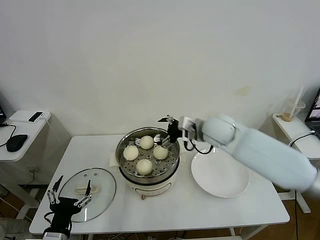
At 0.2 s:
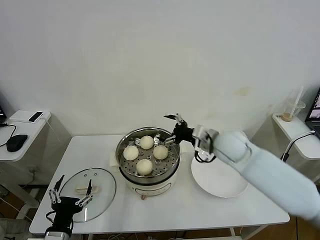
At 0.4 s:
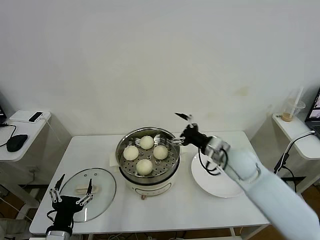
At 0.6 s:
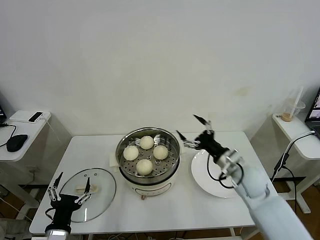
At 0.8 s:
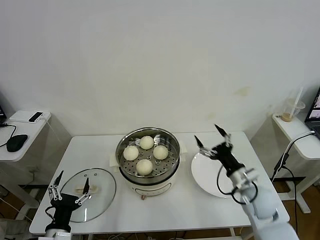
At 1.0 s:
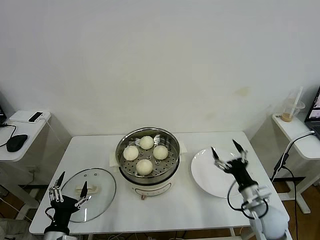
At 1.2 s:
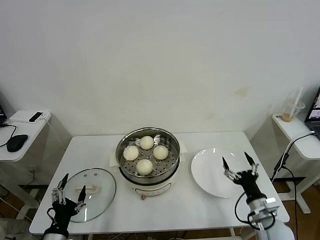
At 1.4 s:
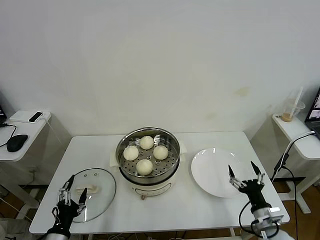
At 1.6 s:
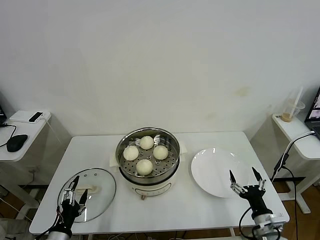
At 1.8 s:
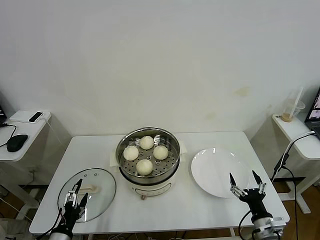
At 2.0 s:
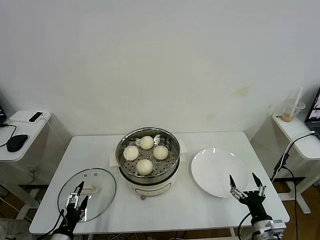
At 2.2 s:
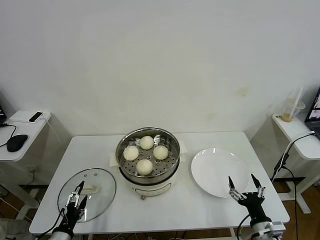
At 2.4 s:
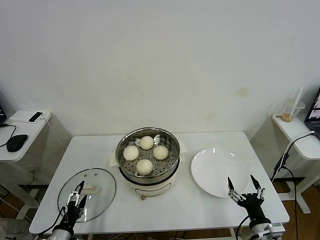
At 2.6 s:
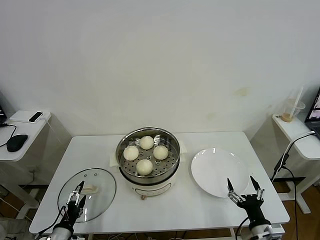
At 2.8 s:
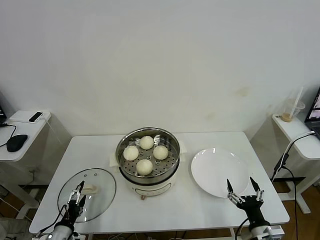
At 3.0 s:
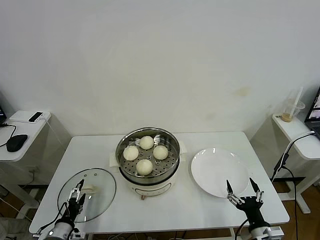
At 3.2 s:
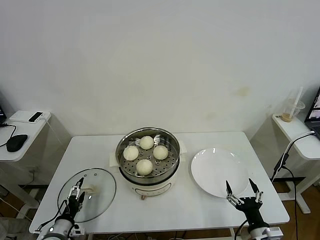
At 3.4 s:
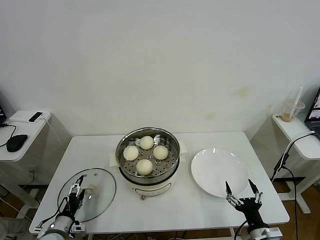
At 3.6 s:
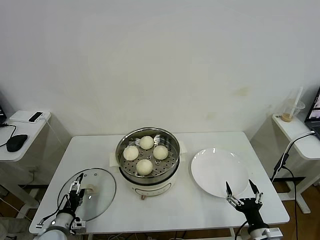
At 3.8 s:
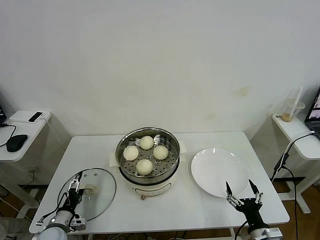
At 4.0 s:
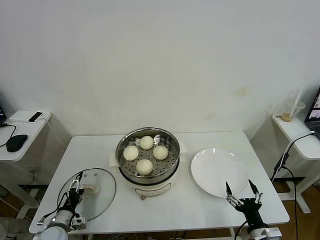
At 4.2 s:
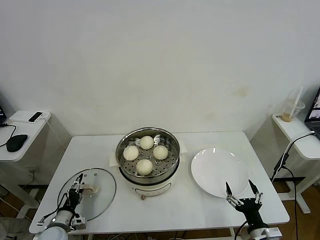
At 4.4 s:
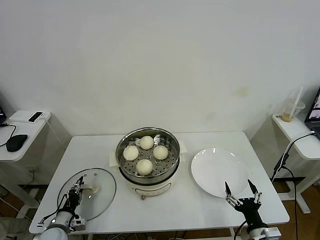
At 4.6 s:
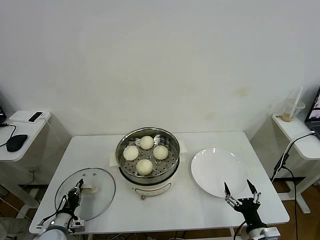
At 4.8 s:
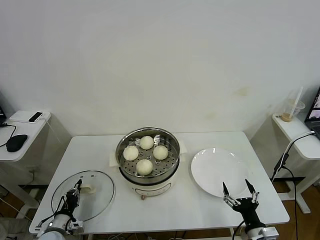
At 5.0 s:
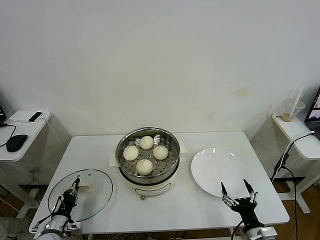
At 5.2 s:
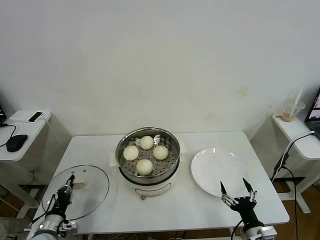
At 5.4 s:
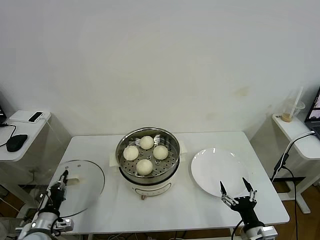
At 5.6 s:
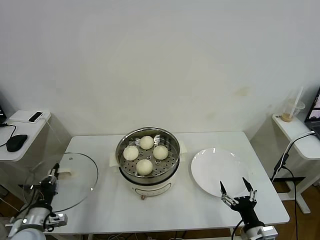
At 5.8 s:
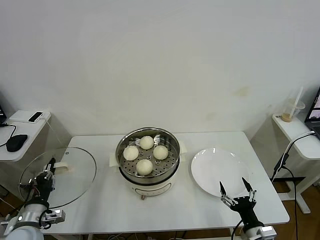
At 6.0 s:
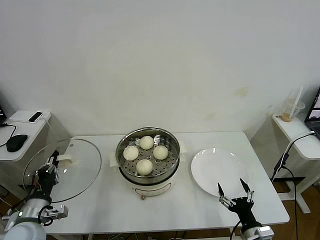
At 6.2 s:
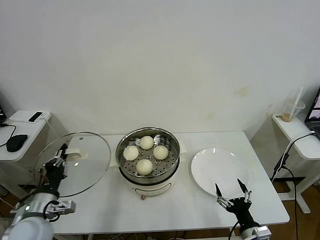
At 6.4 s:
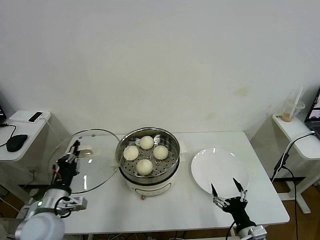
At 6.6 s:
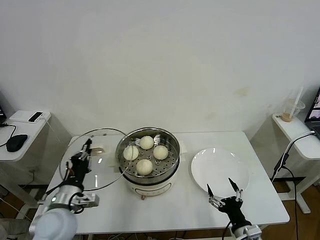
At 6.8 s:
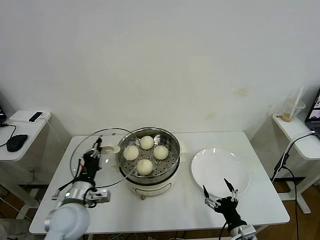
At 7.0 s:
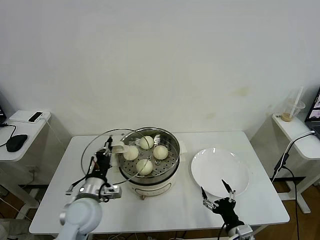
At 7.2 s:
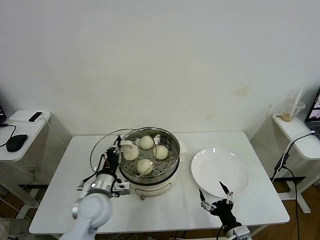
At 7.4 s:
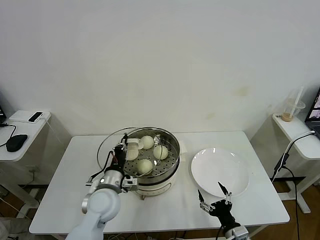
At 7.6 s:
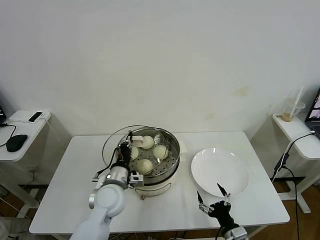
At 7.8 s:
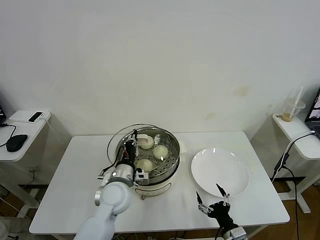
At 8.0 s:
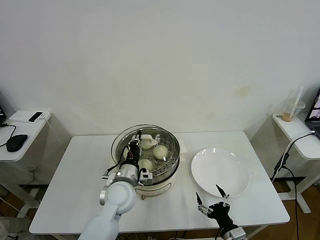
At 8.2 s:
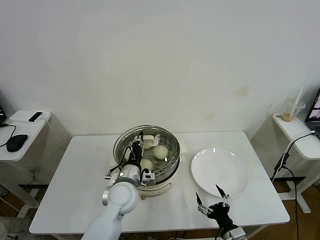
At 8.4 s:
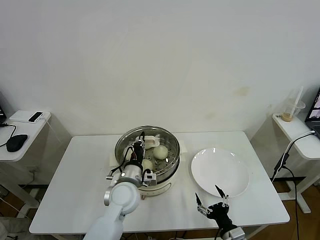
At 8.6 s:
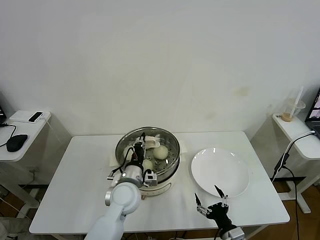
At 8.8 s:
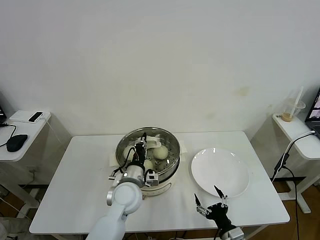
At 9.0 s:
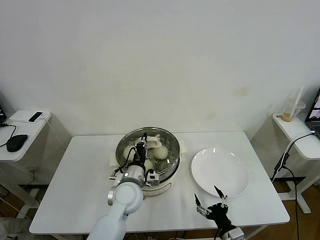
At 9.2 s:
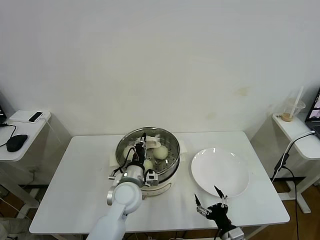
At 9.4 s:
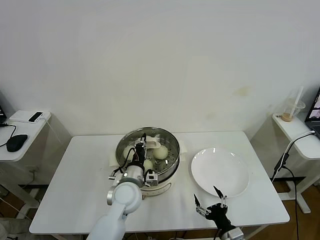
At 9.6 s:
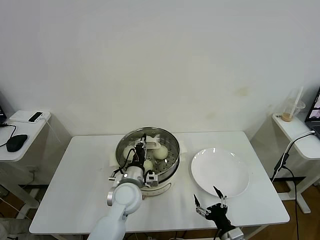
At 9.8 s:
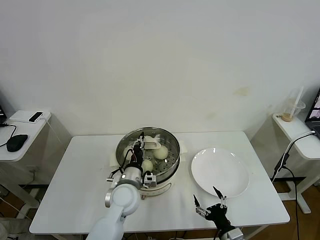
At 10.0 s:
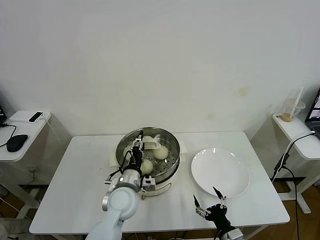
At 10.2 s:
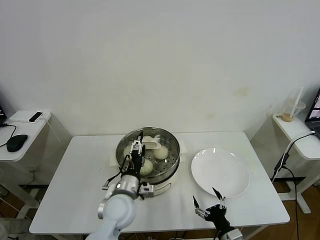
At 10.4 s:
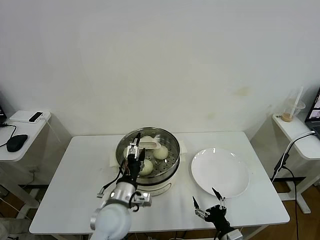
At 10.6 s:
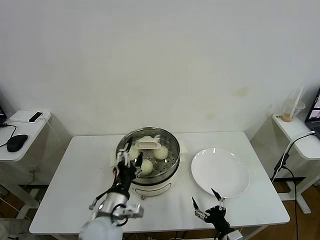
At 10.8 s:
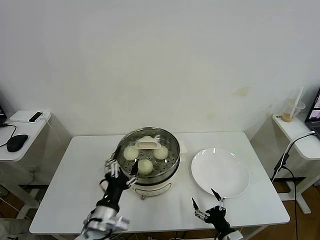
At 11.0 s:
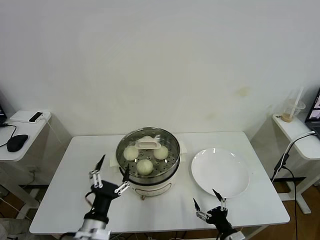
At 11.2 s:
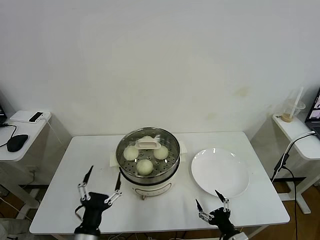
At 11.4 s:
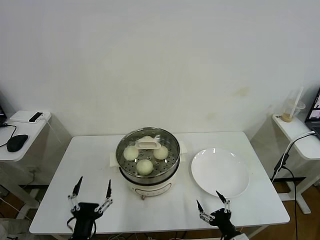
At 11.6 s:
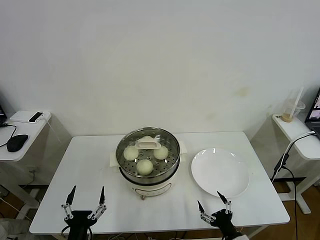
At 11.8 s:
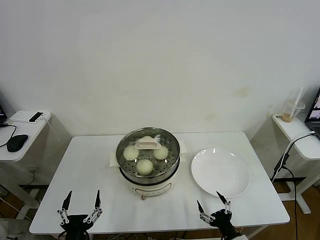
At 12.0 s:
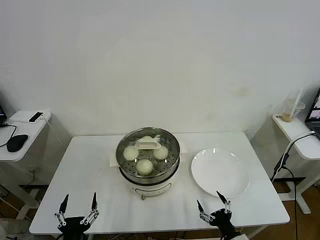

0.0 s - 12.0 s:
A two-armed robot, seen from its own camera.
Task of the whole recording: take steamed baozi put them in steamer then cover it.
Step, 0.0 s - 4.8 s: Grasp the pot lid with left gripper.
Step, 5.0 s - 10.4 s: Place the pot lid on the steamer with left gripper.
0.0 s - 1.6 s: The right gripper shifts about 40 cm backward, downward and to the right; the left gripper goes about 5 cm downward.
1.6 s - 3.0 s: The left gripper moves downward, approximately 5 cm.
3.0 s - 4.4 s: The left gripper heads forward, covering approximately 5 cm, and closes.
4.4 s - 6.0 s: The left gripper goes roughly 15 cm upward, and closes its fingers.
6.0 s - 7.6 s: The right gripper moves roughly 5 cm. The left gripper travels to the right and forward by approximately 25 cm.
7.6 s - 9.0 s: The left gripper shifts roughly 5 cm to the right.
9.0 s - 10.4 s: The left gripper goes roughly 5 cm backward, and opens.
10.4 s - 12.0 s: The left gripper moves backward and to the left, roughly 20 cm.
